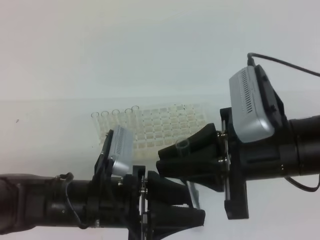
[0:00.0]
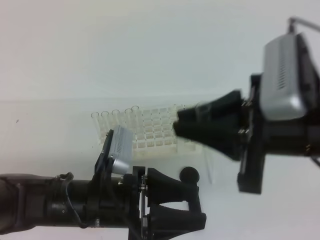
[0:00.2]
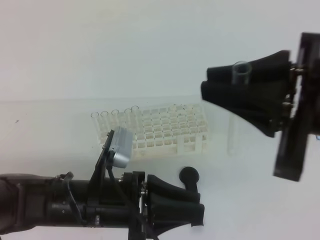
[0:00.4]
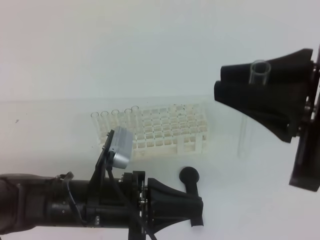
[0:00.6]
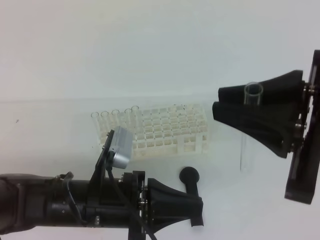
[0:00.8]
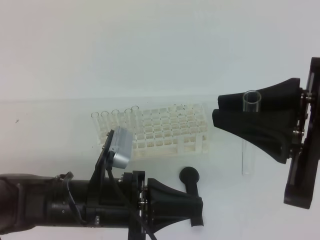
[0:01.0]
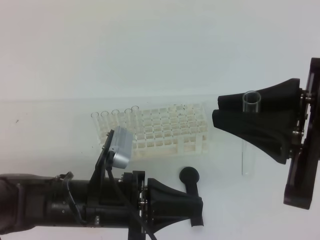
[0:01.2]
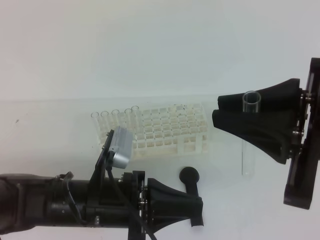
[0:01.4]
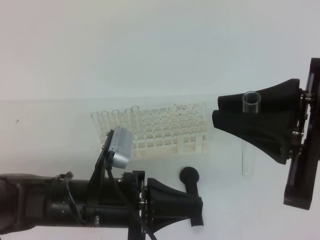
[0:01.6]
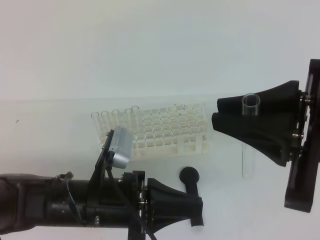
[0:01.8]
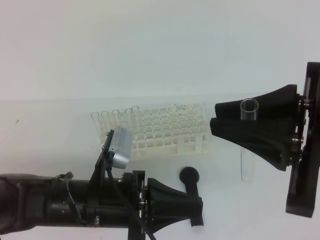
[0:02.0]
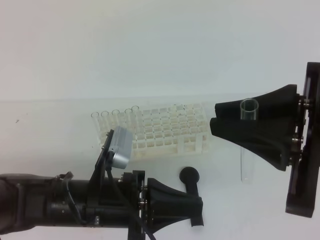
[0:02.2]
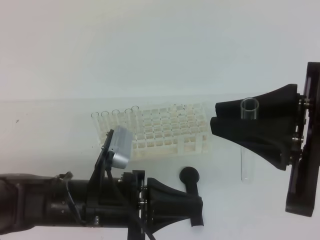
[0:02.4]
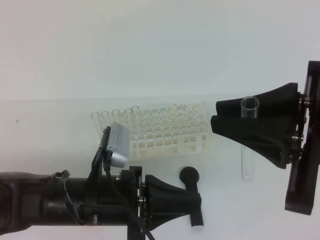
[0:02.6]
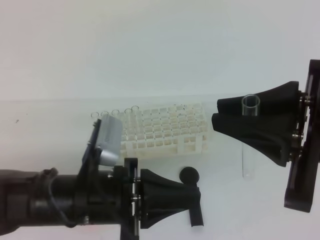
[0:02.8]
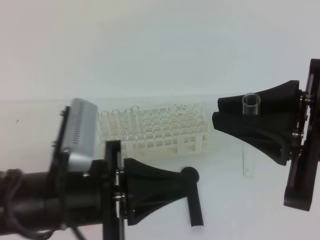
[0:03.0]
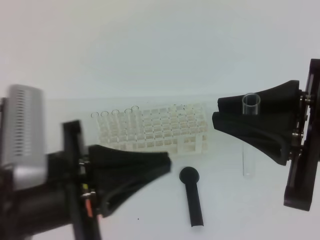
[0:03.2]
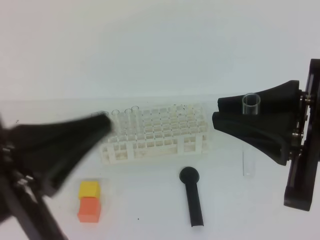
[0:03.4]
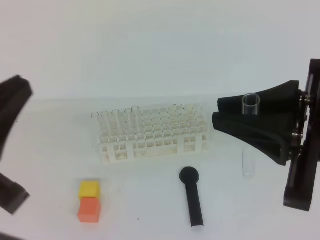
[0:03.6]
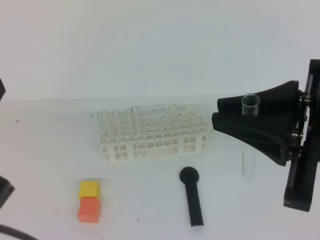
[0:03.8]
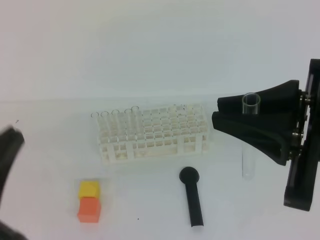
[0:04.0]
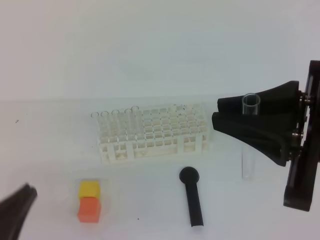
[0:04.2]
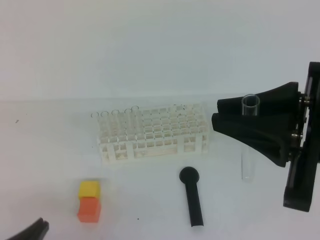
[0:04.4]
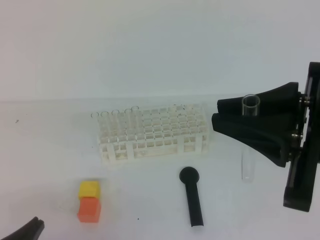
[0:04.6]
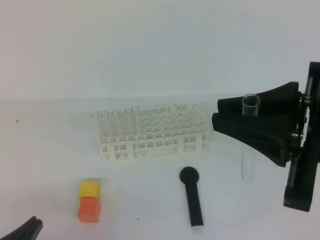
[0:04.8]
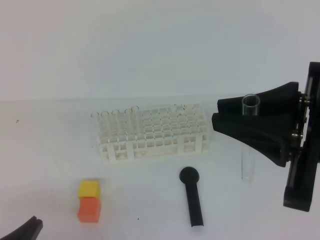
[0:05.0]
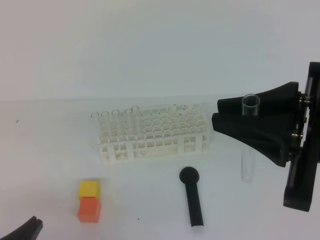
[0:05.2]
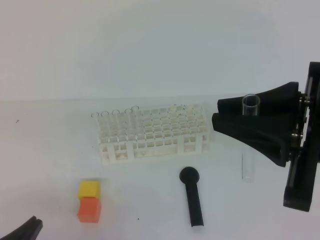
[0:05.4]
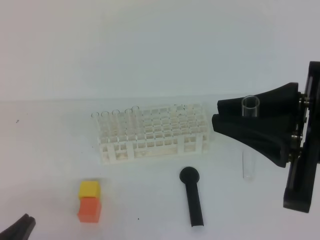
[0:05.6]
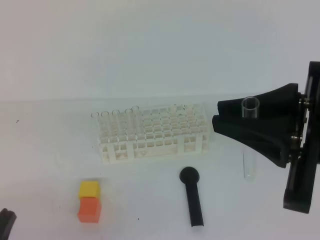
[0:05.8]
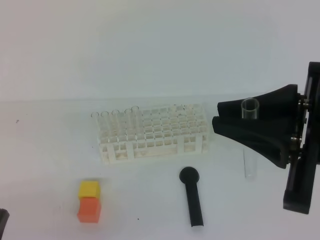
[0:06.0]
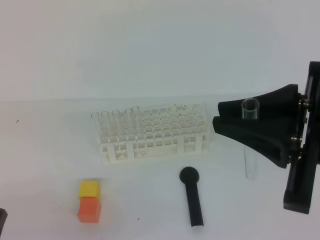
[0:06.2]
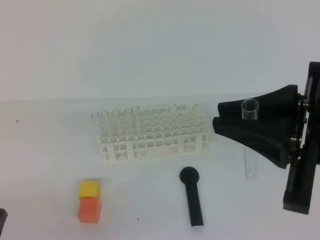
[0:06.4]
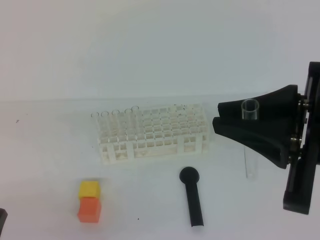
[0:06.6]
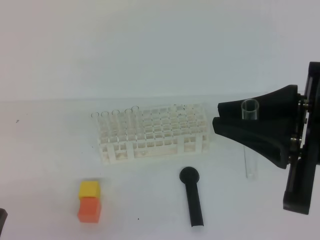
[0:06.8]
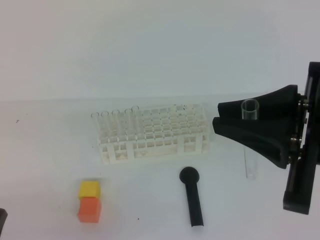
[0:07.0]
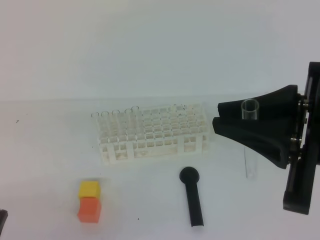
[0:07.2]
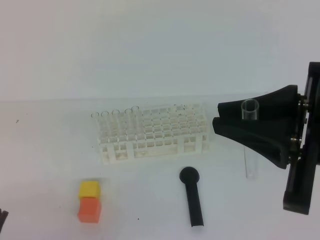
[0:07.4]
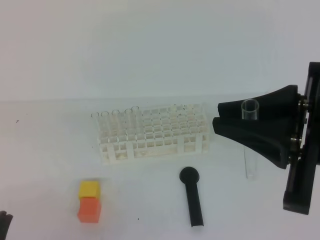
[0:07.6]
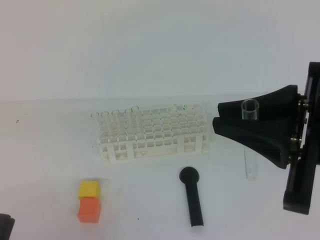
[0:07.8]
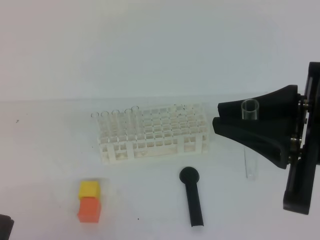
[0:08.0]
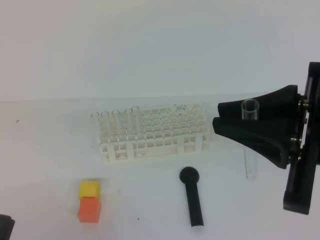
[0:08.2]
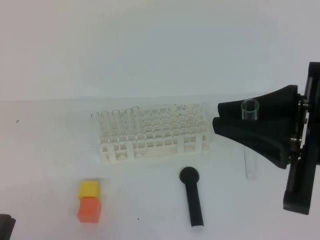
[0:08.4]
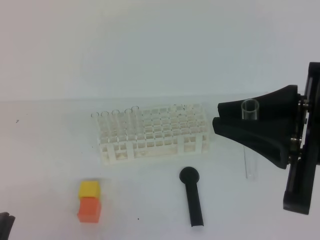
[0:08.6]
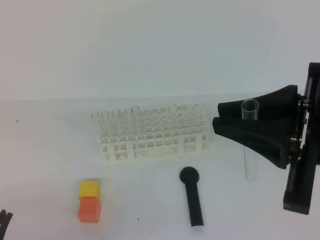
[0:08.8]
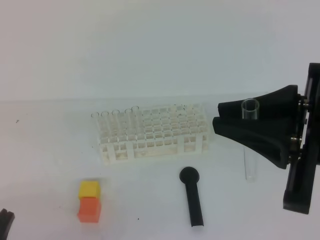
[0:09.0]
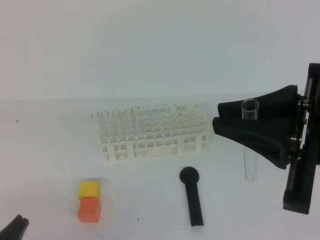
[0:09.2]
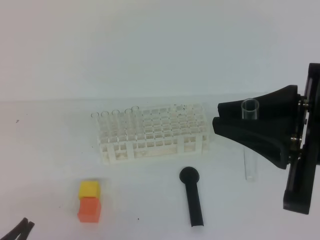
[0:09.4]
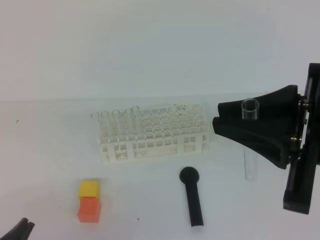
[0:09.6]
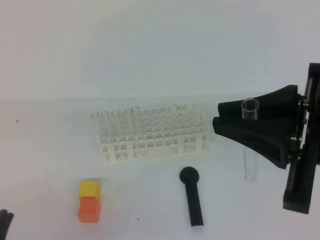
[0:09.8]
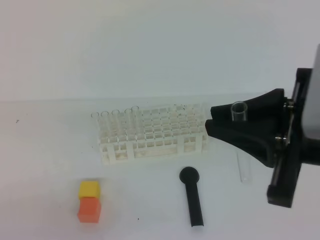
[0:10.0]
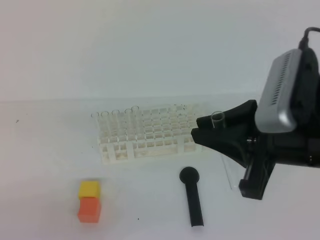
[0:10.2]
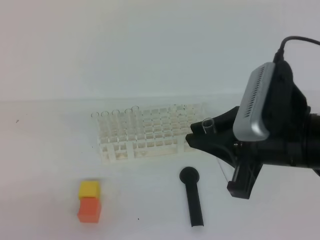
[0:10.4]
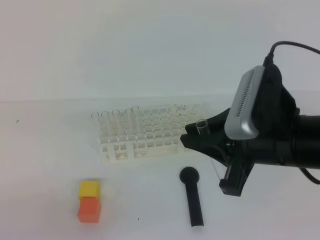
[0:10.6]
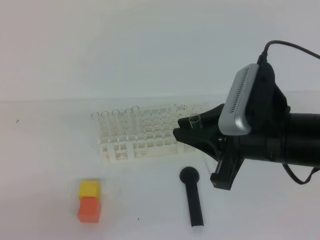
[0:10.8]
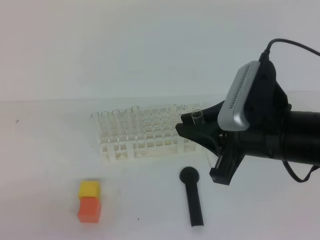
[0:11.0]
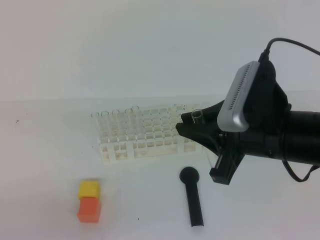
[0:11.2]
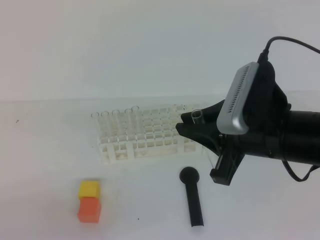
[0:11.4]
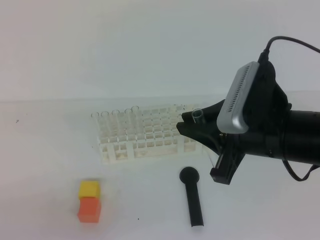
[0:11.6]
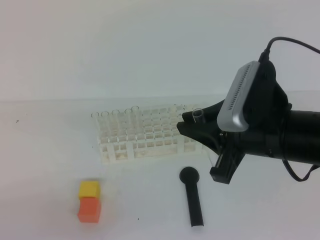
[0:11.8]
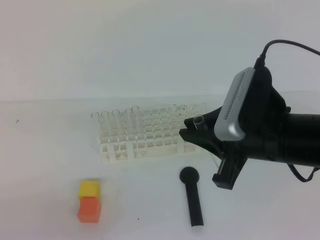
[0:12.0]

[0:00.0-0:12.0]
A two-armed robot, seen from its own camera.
0:00.0 to 0:01.6: The left gripper closes up. The right gripper is displaced upward and to the right by some 10 cm.
0:01.6 to 0:03.0: The left gripper shifts by roughly 5 cm.
0:03.0 to 0:04.4: The left gripper heads to the left and backward, covering about 15 cm, and reaches approximately 10 cm upward, then returns.
0:04.4 to 0:06.0: The grippers stay close to where they were, moving slightly.
0:09.0 to 0:10.4: The right gripper ends up some 5 cm from where it was.
0:10.4 to 0:12.0: The right gripper moves approximately 5 cm.

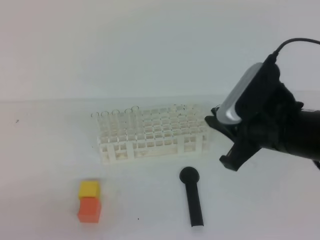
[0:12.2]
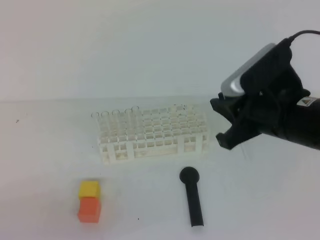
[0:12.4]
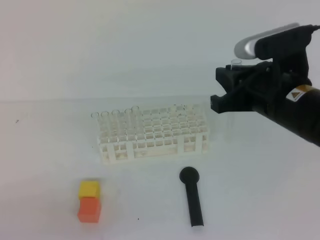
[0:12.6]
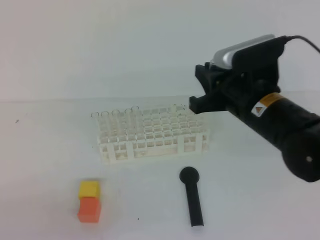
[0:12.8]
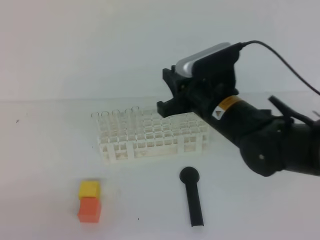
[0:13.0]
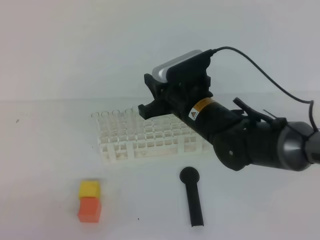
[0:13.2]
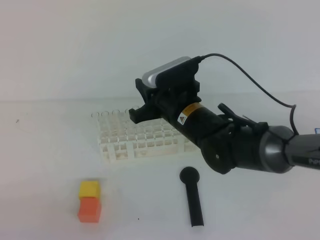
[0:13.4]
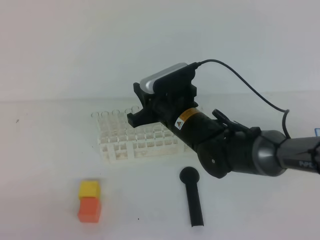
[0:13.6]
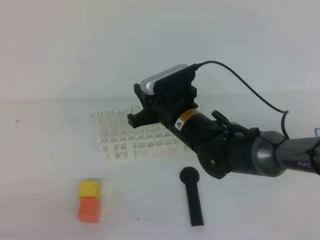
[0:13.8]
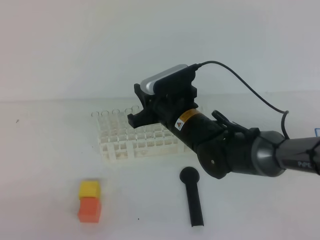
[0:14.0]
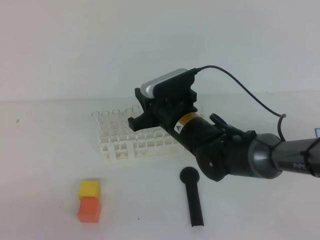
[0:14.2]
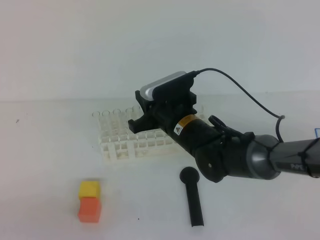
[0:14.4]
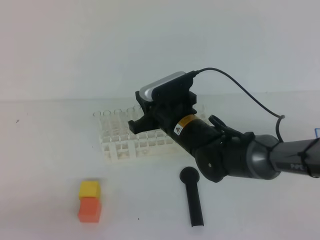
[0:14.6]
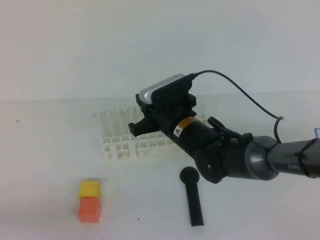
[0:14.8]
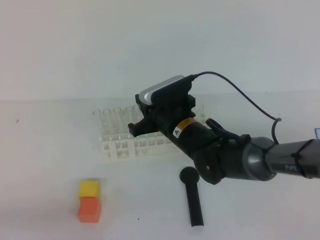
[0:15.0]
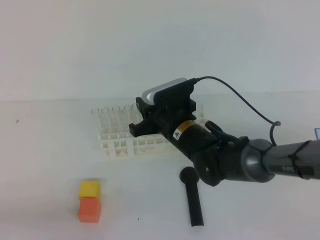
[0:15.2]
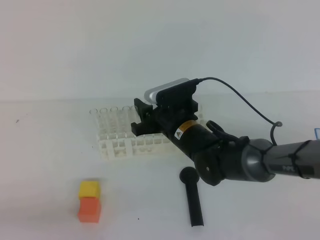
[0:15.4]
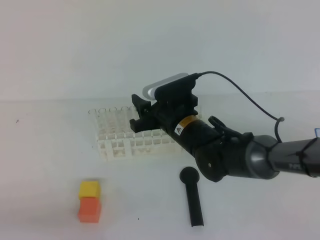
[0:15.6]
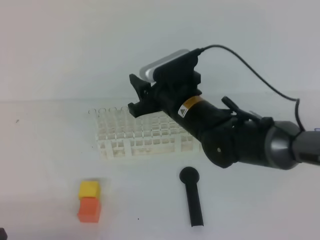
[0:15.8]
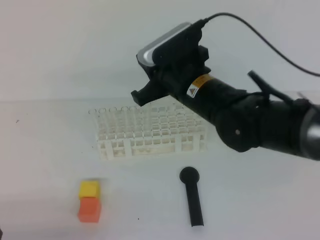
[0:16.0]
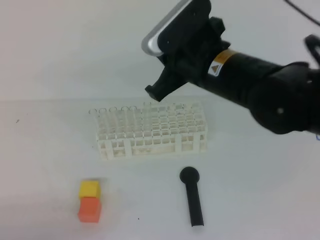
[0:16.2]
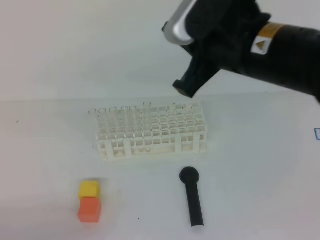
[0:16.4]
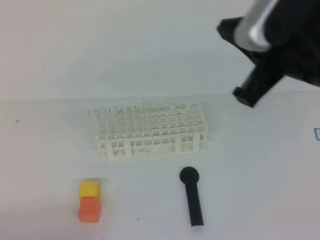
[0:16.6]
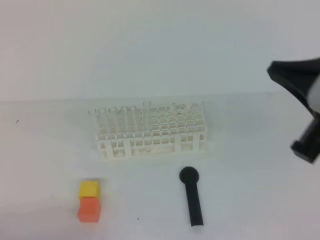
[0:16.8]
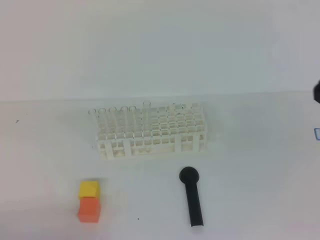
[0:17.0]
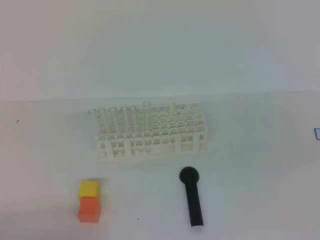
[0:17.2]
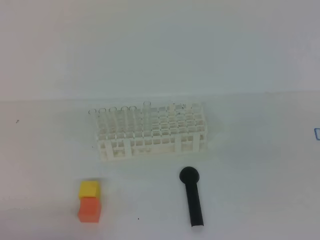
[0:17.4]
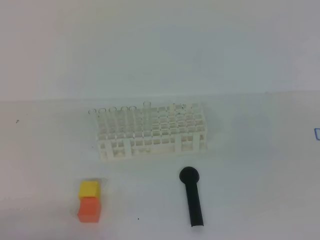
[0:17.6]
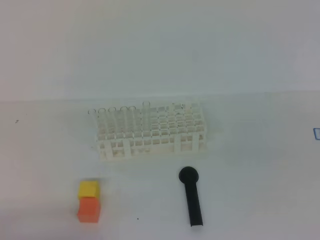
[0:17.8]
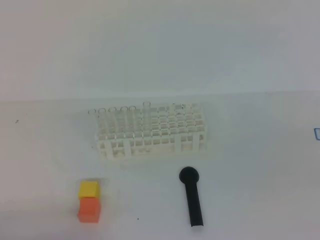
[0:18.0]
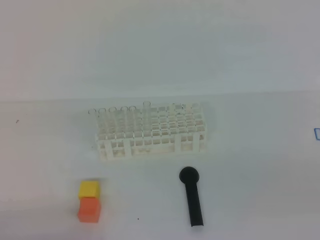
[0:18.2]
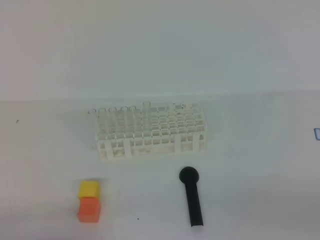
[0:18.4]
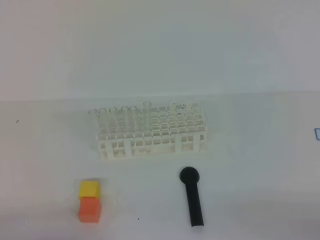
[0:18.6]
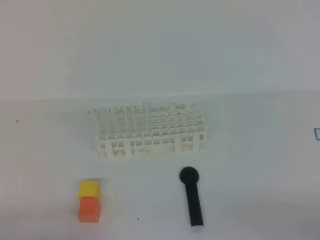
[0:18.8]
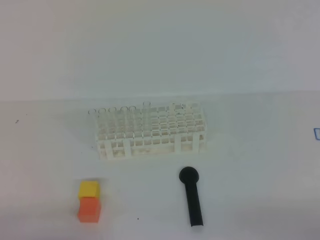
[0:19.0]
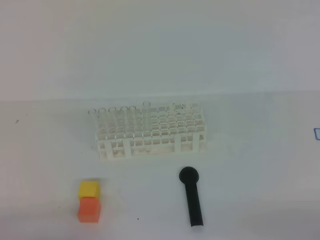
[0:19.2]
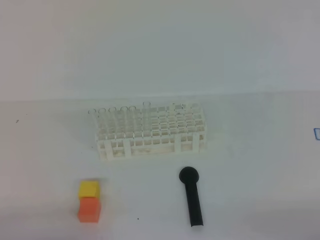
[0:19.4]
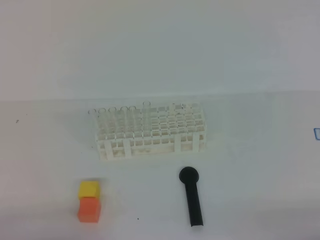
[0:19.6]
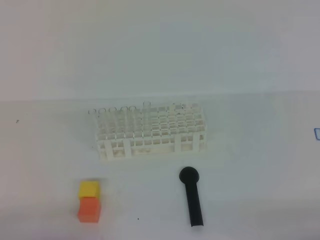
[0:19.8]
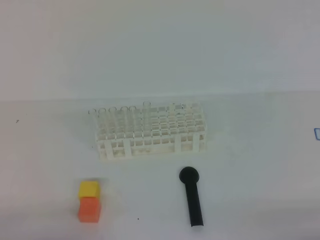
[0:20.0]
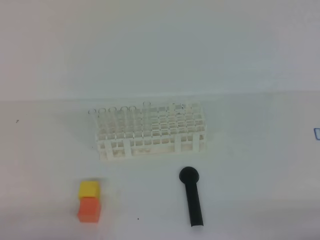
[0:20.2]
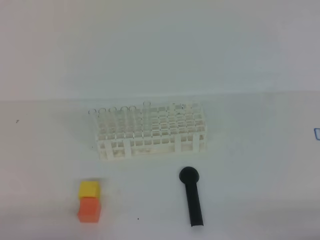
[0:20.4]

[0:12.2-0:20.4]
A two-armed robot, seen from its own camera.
0:12.2 to 0:13.8: The right gripper travels to the left, forward and downward by some 20 cm.
0:15.4 to 0:17.2: The right gripper moves backward, to the right and upward, about 40 cm, and closes.
